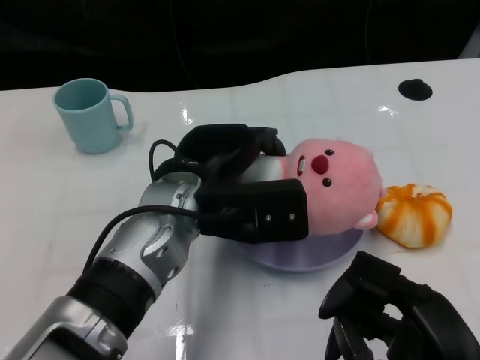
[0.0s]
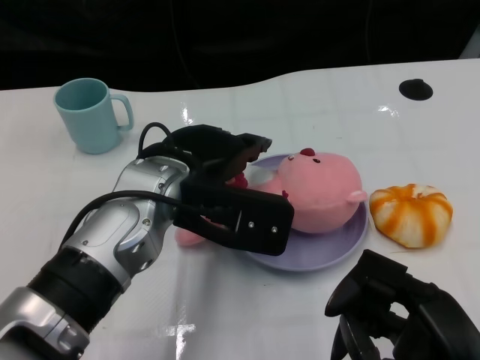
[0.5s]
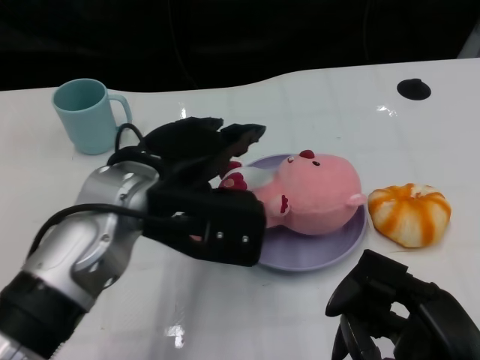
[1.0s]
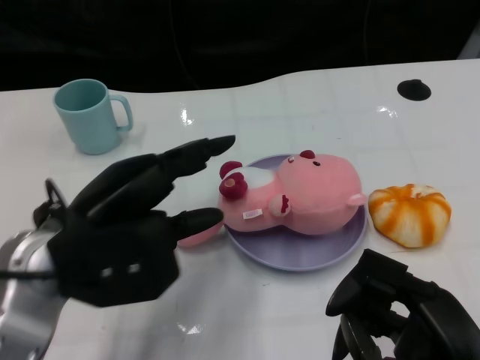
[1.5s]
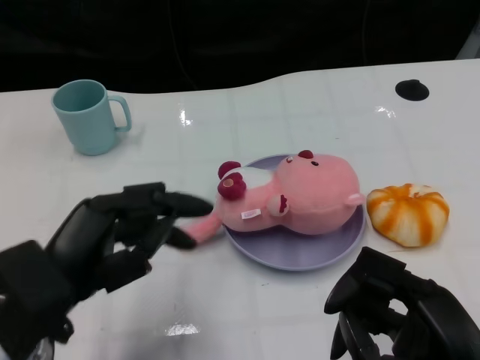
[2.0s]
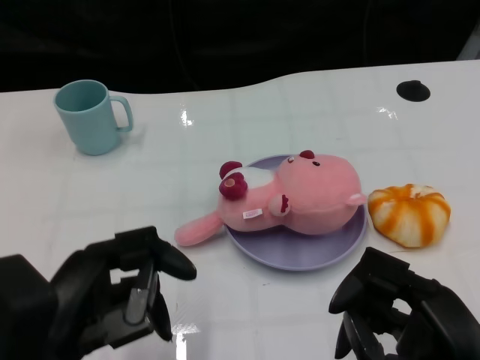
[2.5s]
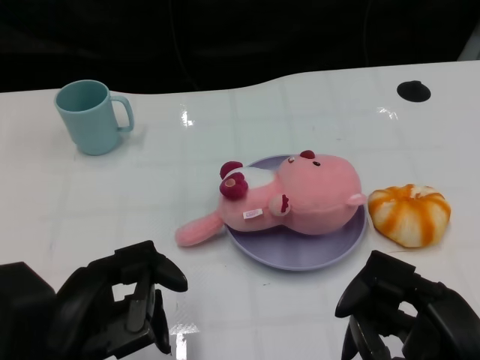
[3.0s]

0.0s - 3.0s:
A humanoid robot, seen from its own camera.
Task of the whole recording: Pick up the doll on one side of the plate and place it into the plate.
0.0s - 1.5s: The left hand travels to the left and backward by approximately 15 cm.
1.5s - 3.0s: The left hand goes approximately 10 cm backward and downward.

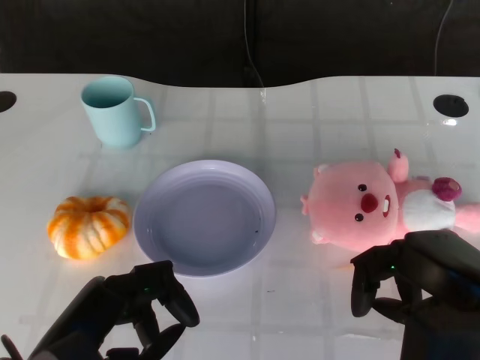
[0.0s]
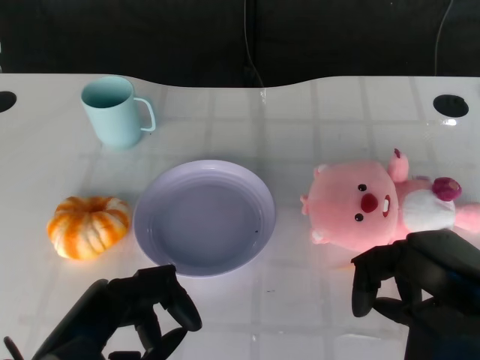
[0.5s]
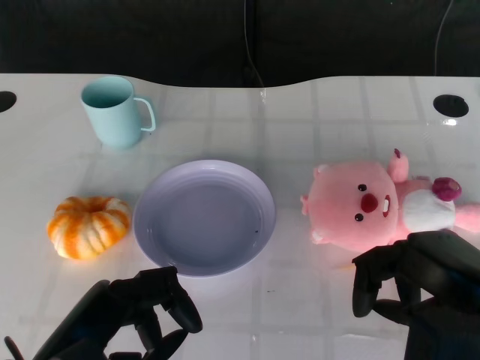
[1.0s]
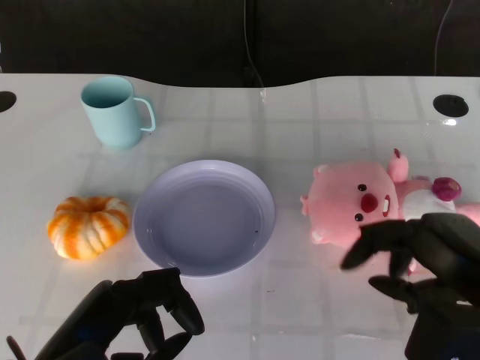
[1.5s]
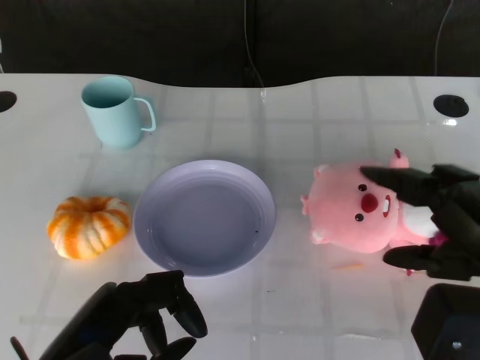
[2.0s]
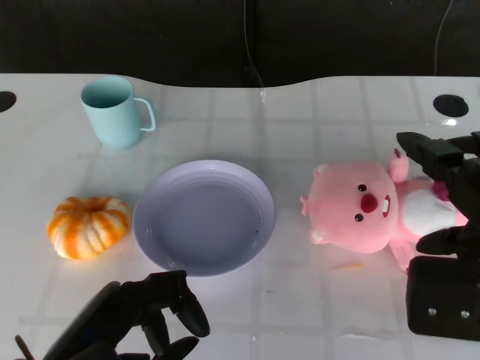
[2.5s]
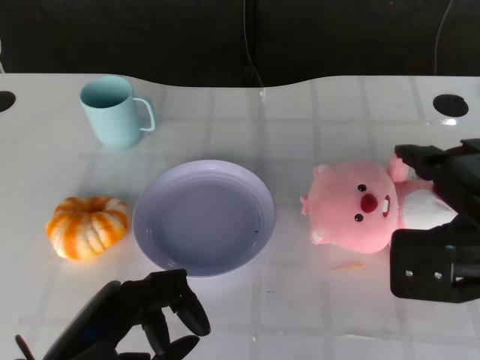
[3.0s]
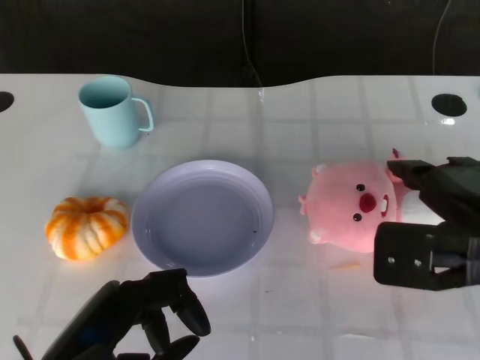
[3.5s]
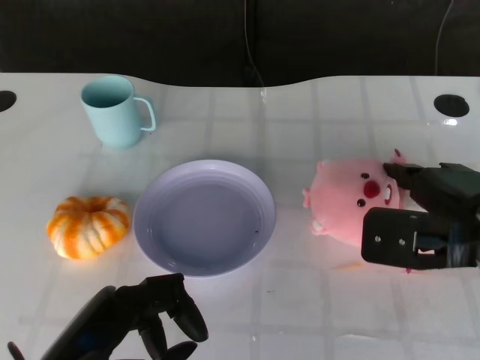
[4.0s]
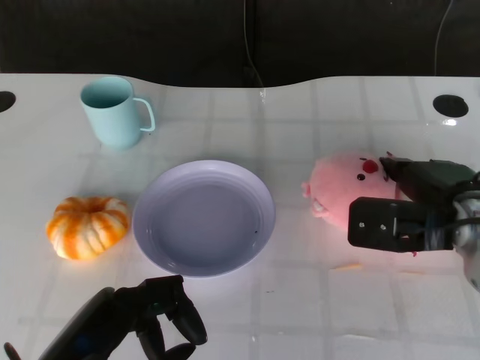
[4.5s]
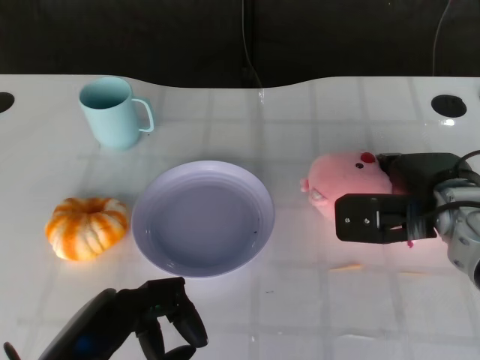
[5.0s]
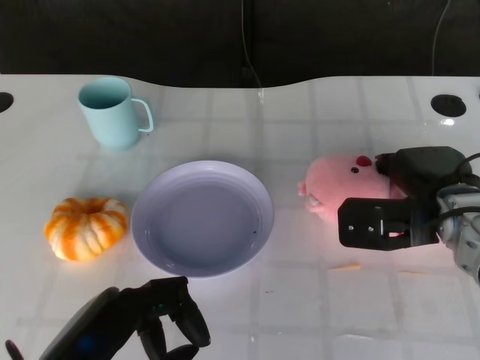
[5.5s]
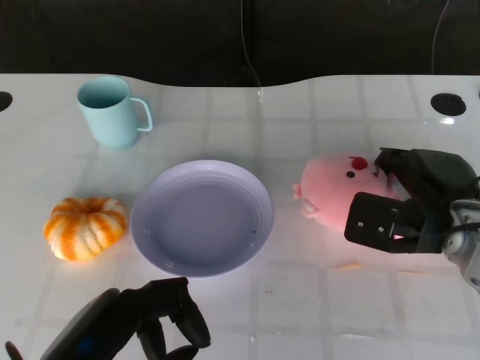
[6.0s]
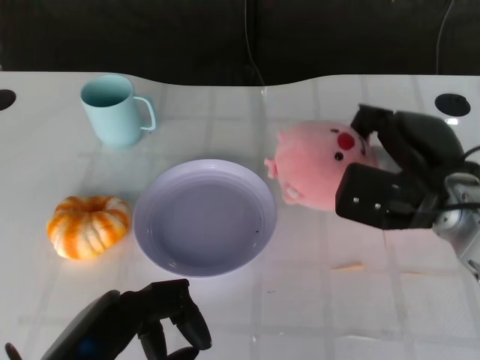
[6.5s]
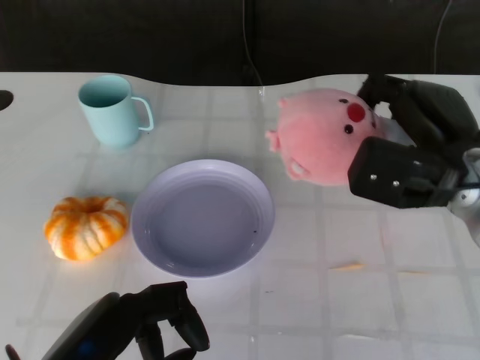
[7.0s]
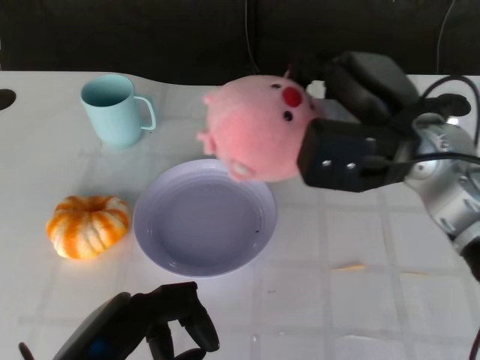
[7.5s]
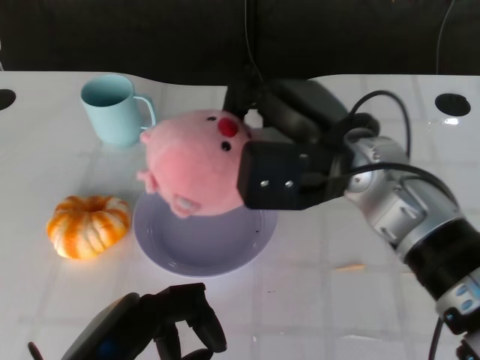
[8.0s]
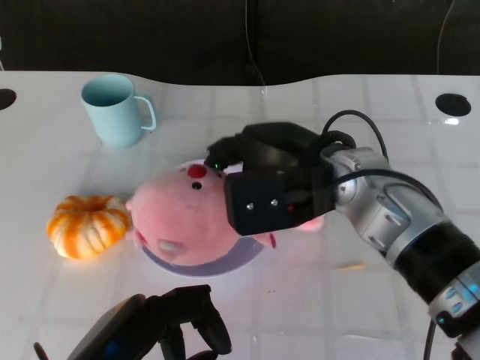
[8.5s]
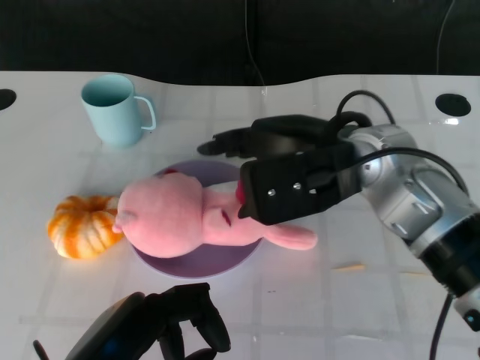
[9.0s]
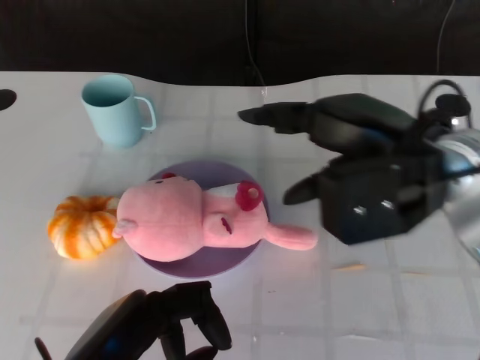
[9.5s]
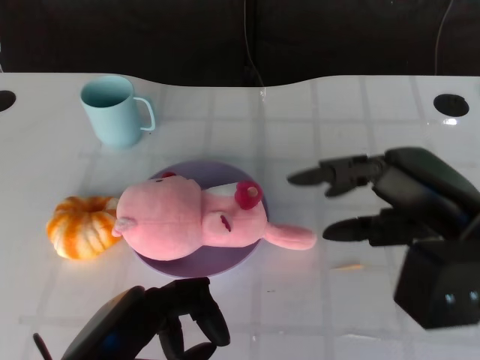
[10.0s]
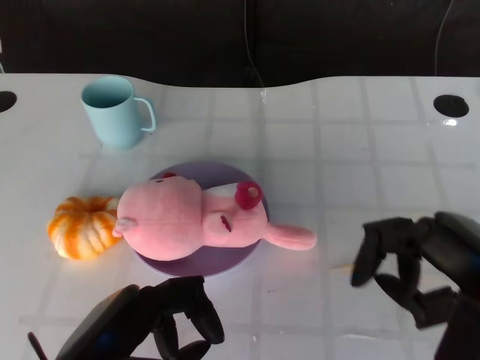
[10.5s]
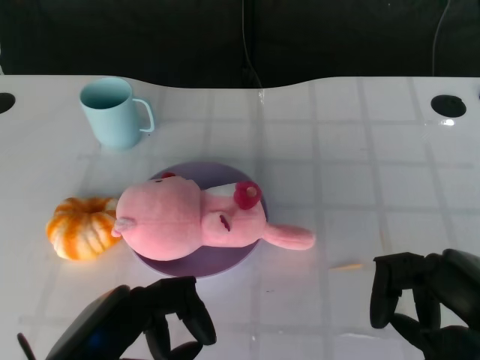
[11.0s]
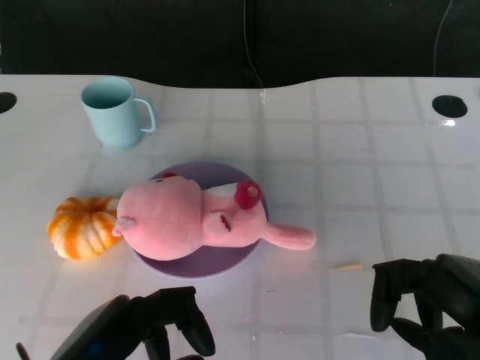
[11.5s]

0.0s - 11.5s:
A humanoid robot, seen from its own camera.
Task of the whole recording: Pick up the doll on the other side of the plate and place it into the plate.
Step, 1.5s - 6.0s: Grasp the pink doll with the right gripper.
Step, 6.5s - 9.0s: Place the pink doll into the plate with the right gripper.
2.0s - 4.0s: The right hand is displaced forward by some 10 cm.
4.0s - 6.0s: The right hand shifts by some 5 cm.
6.0s - 7.5s: The right hand shifts some 10 cm upward and to the left.
7.5s - 9.5s: The right hand moves about 5 cm to the left and comes back.
9.5s - 11.5s: The right hand travels backward, downward and to the right by about 20 cm.

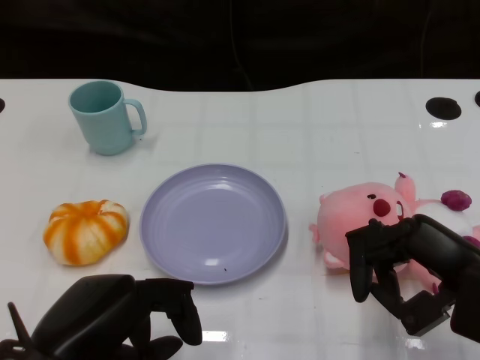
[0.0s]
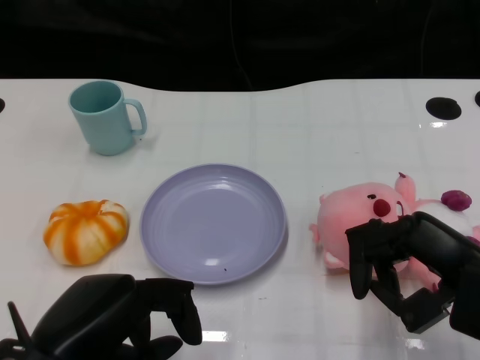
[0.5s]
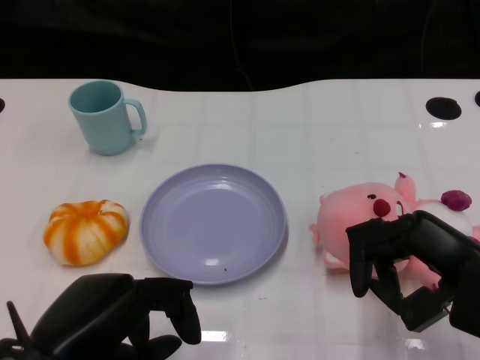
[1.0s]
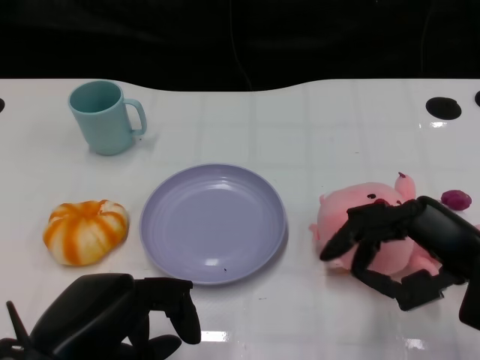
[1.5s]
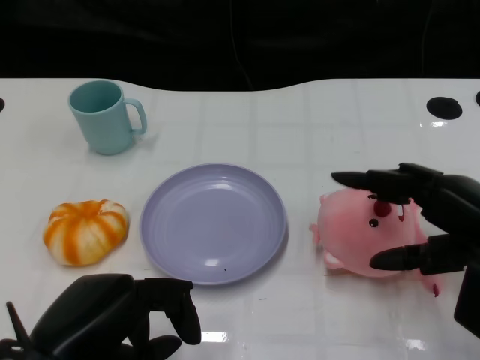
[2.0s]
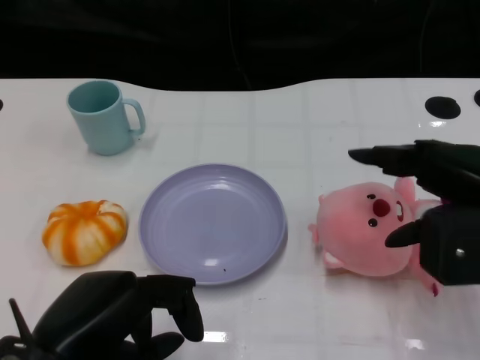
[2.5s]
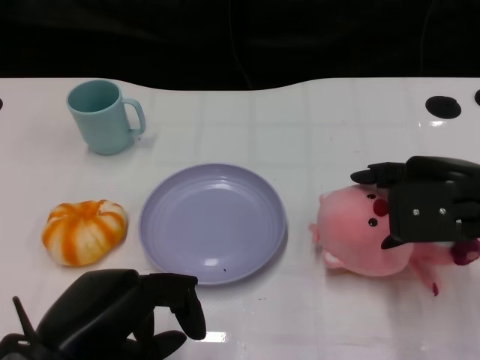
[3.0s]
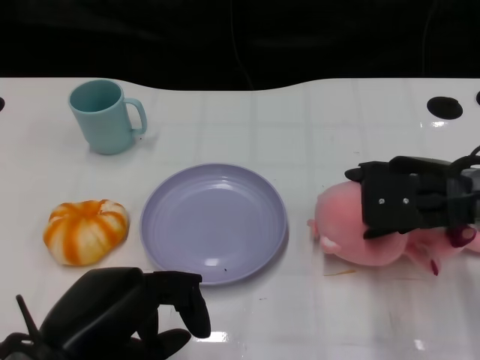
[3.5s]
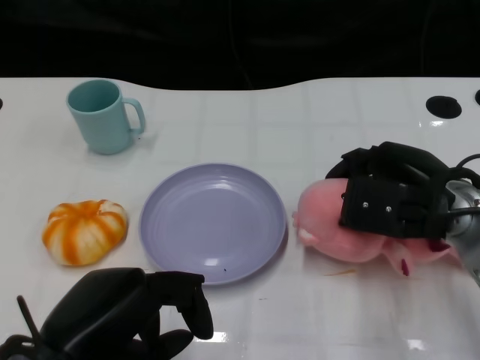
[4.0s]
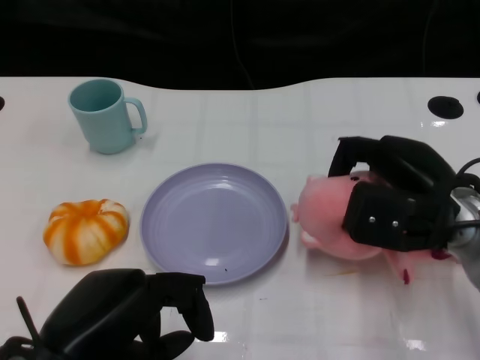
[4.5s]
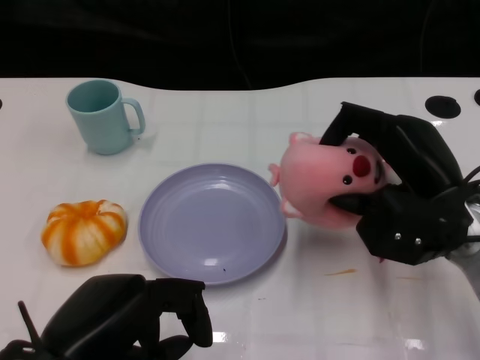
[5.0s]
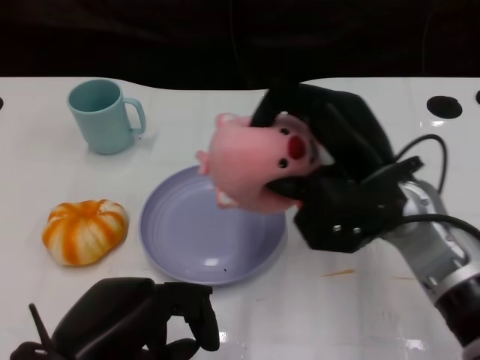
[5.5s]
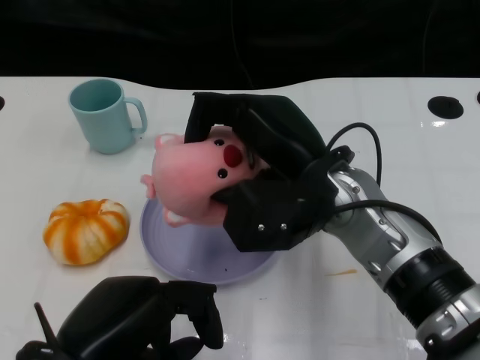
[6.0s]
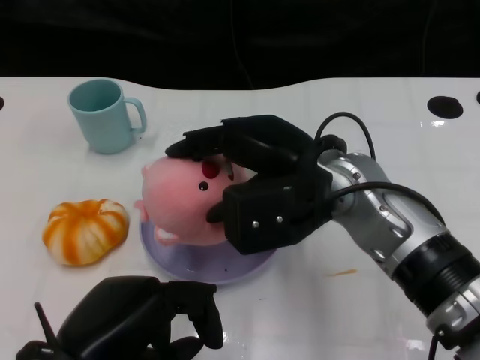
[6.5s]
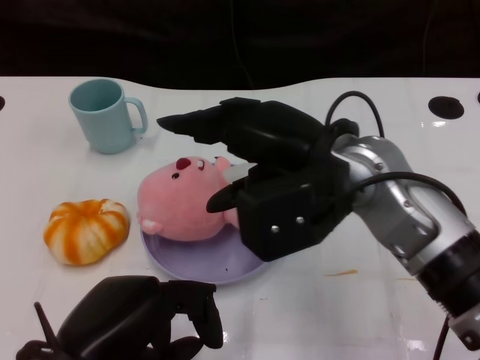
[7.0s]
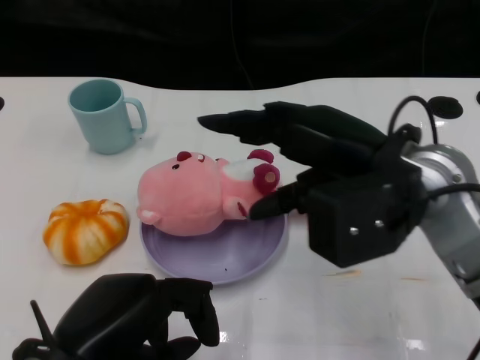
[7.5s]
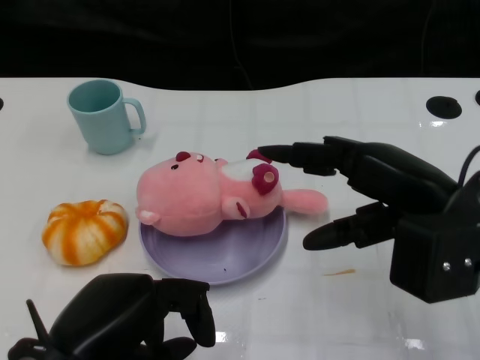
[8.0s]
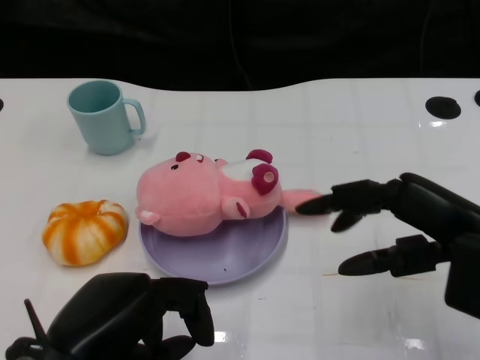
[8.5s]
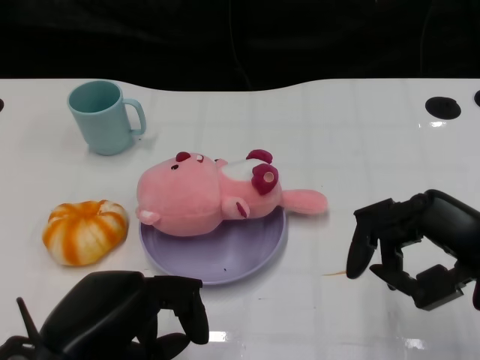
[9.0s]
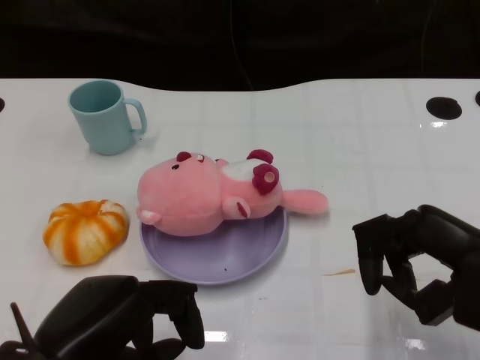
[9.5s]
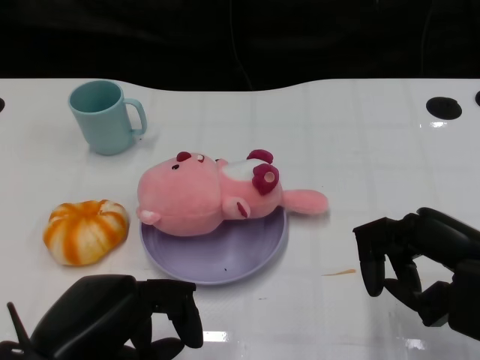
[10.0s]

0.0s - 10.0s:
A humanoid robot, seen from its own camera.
Task of the whole recording: Pick up the doll on the other side of the plate and place it into the plate.
Step, 1.5s - 5.0s: Grasp the pink doll with the right gripper.
Step, 5.5s - 7.5s: Place the pink doll into the plate with the right gripper.
2.0s - 4.0s: The right hand goes roughly 10 cm forward and to the left.
4.0s - 6.0s: The right hand heads to the left, covering some 10 cm.
6.0s - 8.0s: The right hand is displaced to the right by some 10 cm.
8.0s - 10.0s: The right hand is displaced to the right by roughly 5 cm.

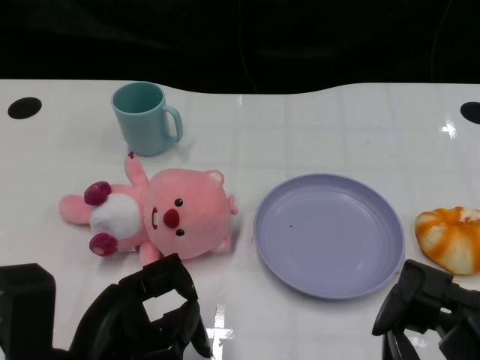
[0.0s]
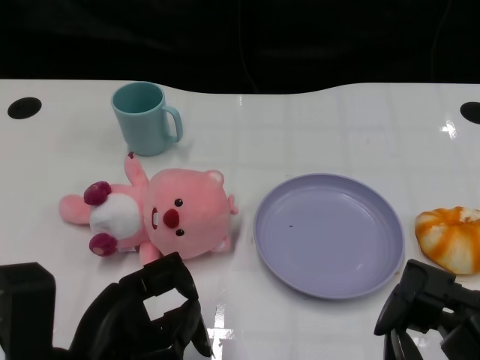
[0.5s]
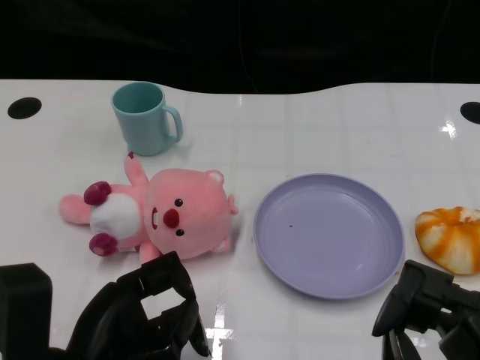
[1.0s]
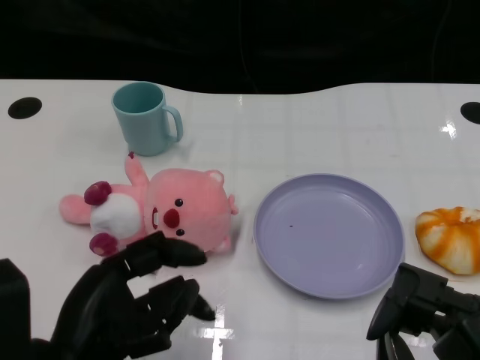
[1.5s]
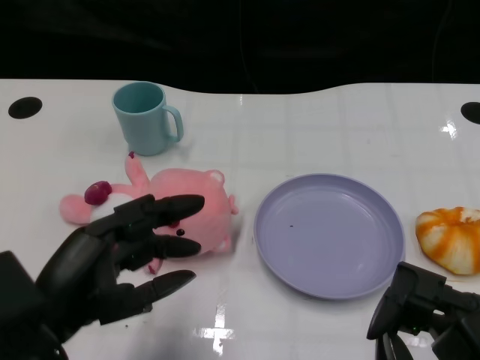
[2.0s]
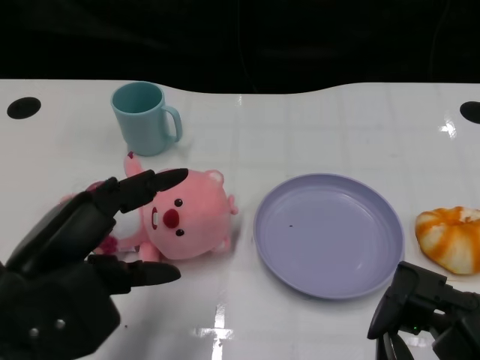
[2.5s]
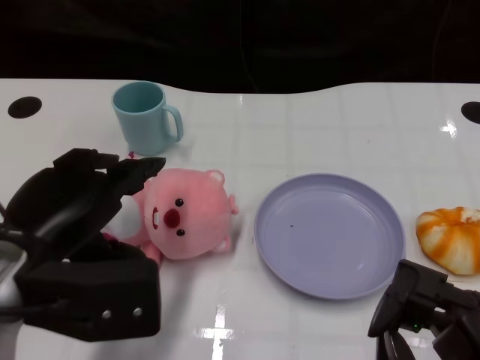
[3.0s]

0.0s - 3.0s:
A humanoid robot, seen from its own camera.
Task of the whole recording: Pick up the doll on one side of the plate and place it into the plate.
1.5s - 3.0s: The left hand moves upward and forward, some 10 cm.
